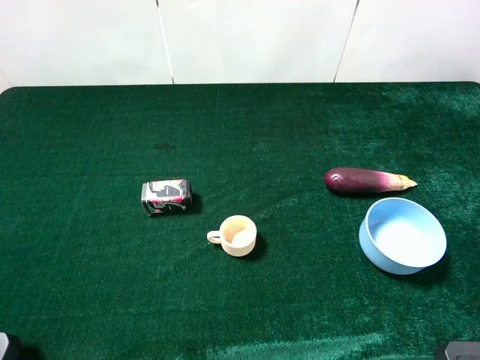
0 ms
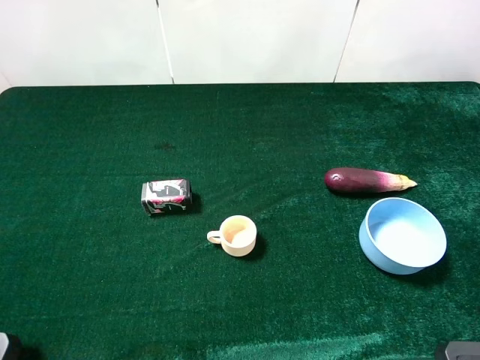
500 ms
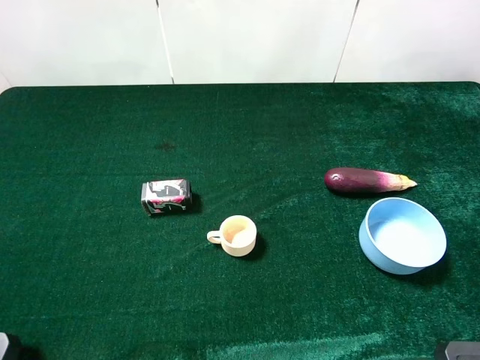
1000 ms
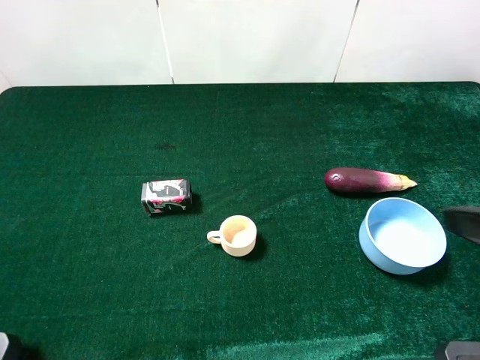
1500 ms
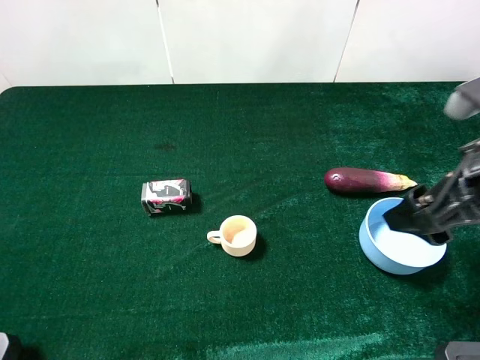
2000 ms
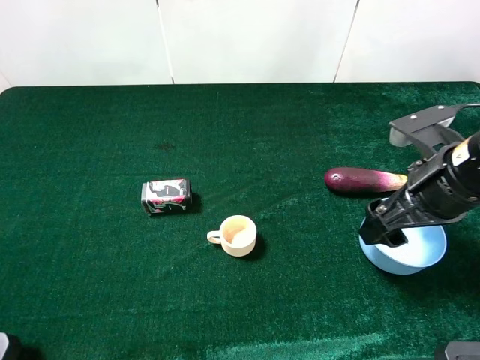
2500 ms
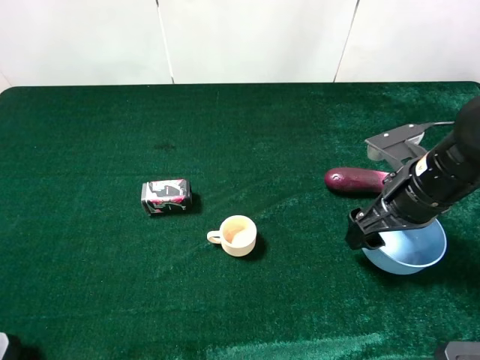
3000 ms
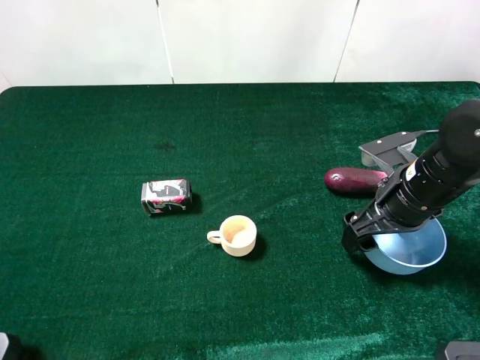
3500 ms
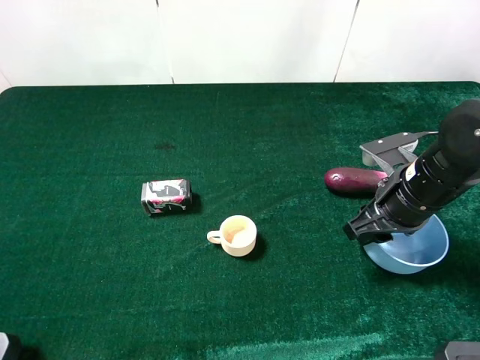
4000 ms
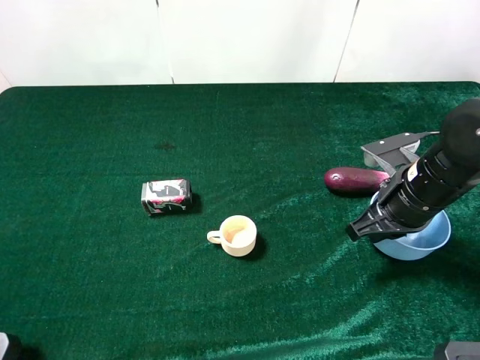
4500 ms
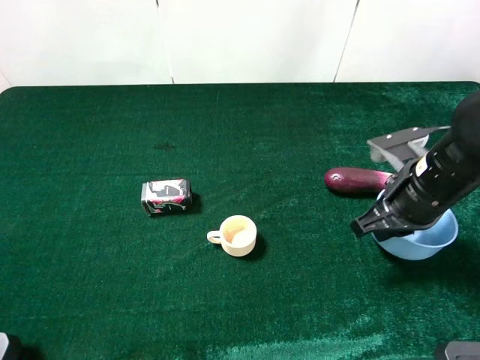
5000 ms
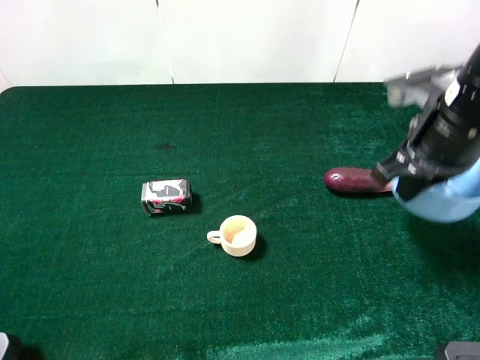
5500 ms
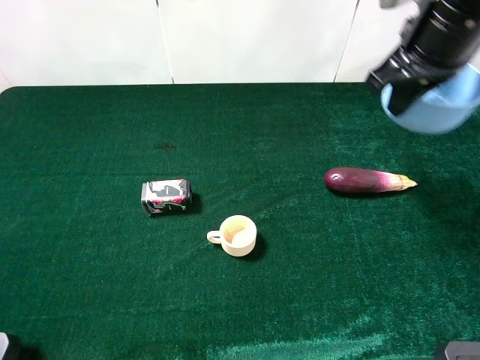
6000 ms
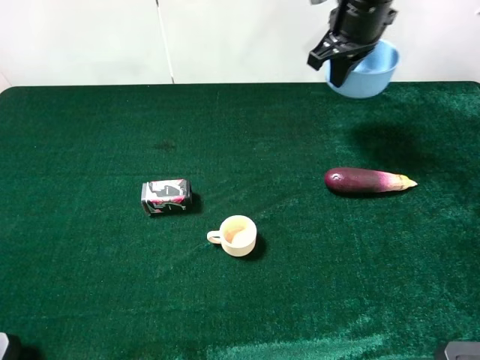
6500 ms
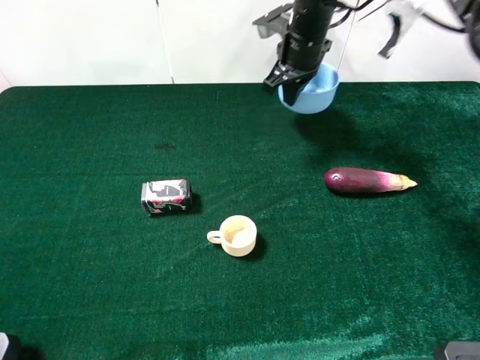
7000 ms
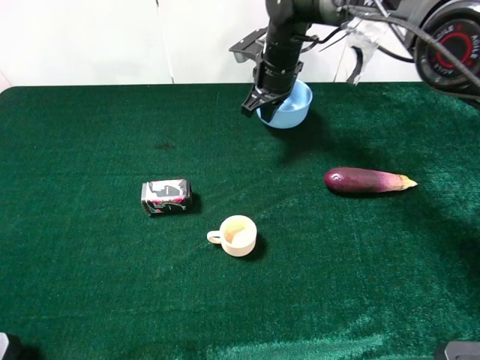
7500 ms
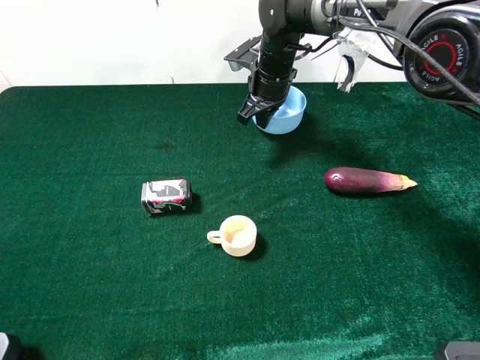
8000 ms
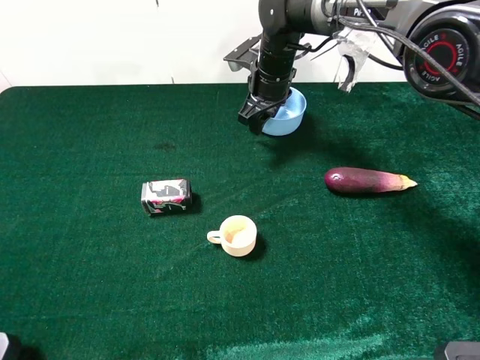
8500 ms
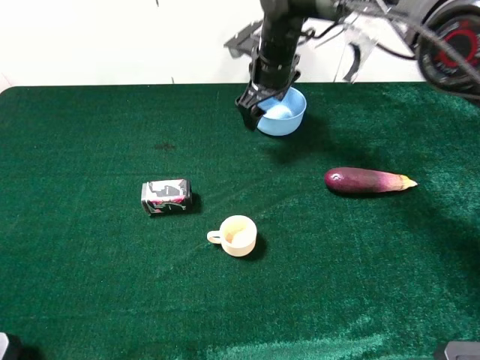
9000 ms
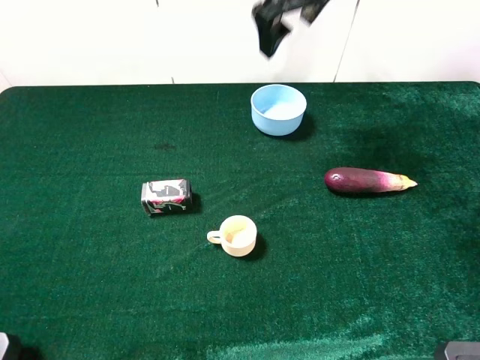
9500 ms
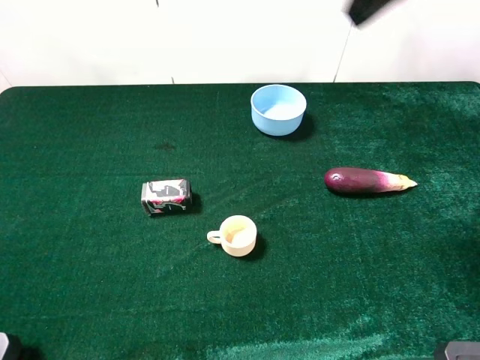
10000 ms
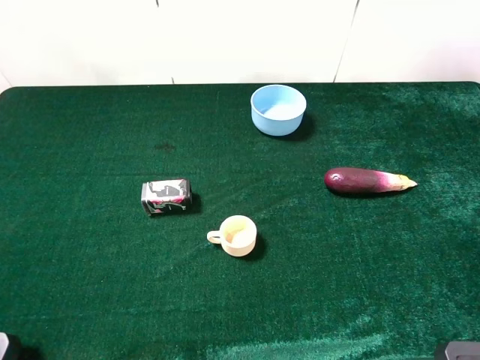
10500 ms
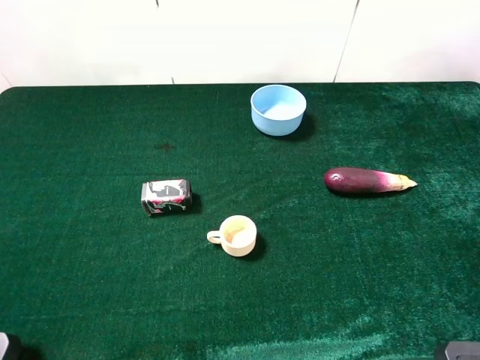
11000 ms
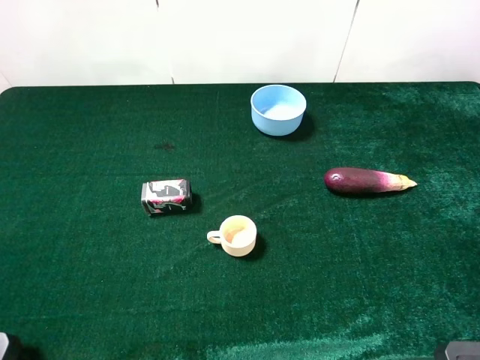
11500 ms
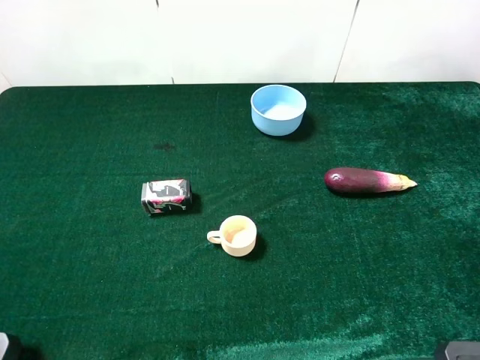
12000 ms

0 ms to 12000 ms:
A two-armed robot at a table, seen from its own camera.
Task of the whole recording: the gripper move the object.
Step, 0 ms to 4000 ms: Grasp the blue bowl with the right gripper.
Step, 4500 ms to 8000 ms: Place the blue bowl on the table with the right gripper.
0 ms to 2000 ms: The right gripper is displaced forward and downward by approximately 15 cm.
2000 ms to 4000 ms: The right gripper moves downward and forward, some 10 cm, and closes.
4000 ms to 6000 ms: The right gripper goes some 20 cm upward and forward, and closes.
6000 ms to 8000 ms: The right gripper is displaced downward, to the left and forward by about 25 cm.
8000 ms to 10000 ms: The right gripper goes about 40 cm upward, backward and to the right, and opens up.
